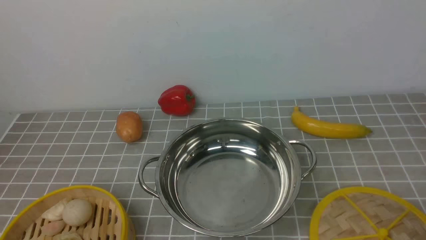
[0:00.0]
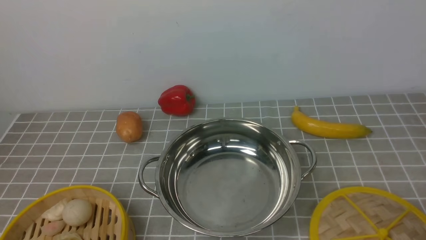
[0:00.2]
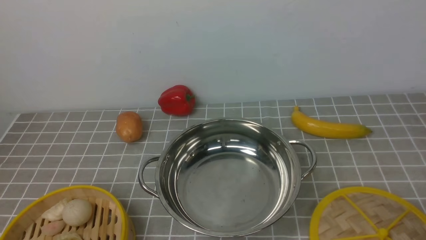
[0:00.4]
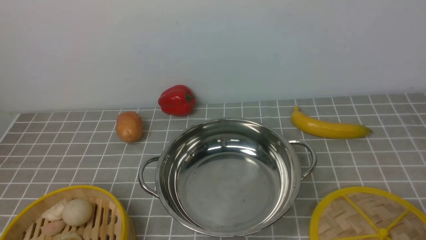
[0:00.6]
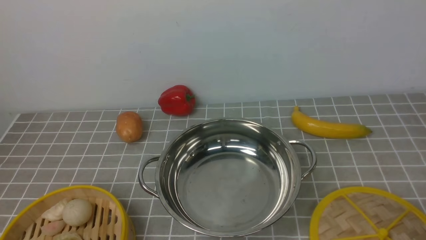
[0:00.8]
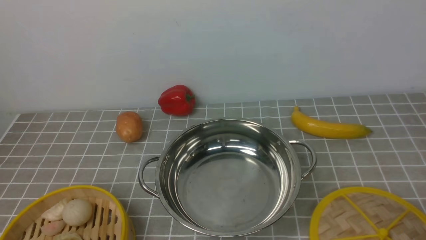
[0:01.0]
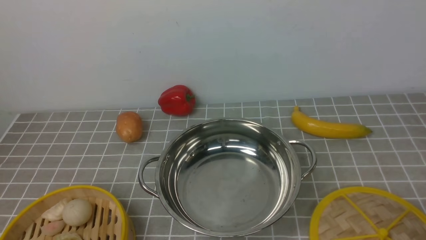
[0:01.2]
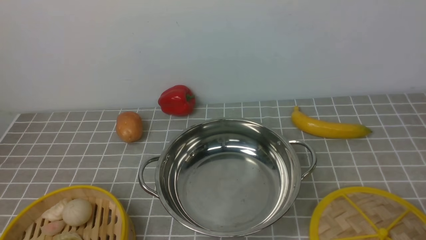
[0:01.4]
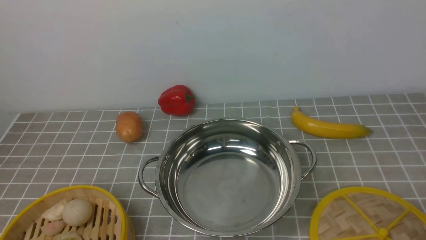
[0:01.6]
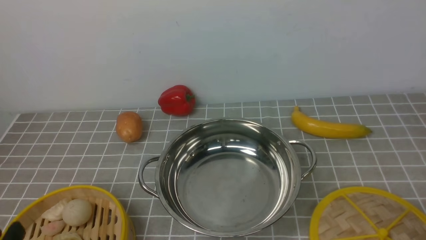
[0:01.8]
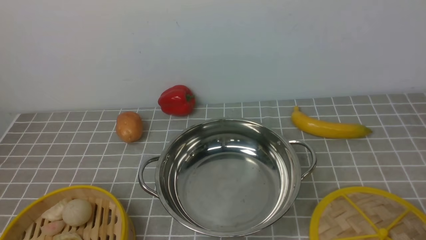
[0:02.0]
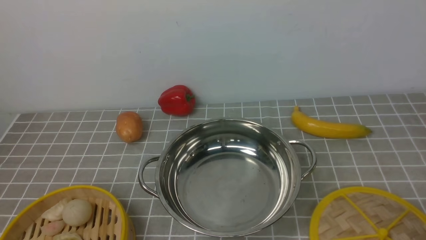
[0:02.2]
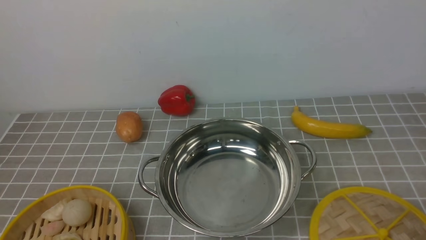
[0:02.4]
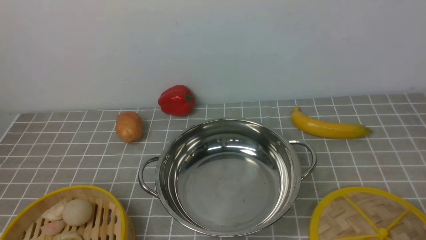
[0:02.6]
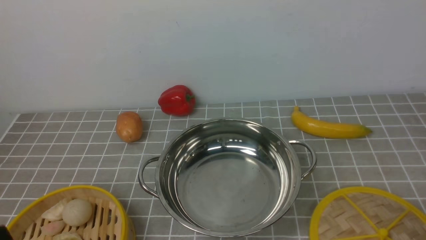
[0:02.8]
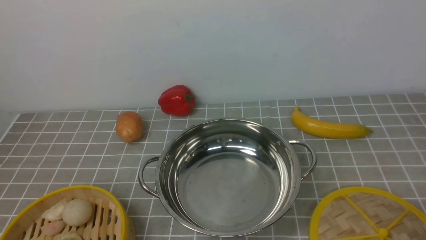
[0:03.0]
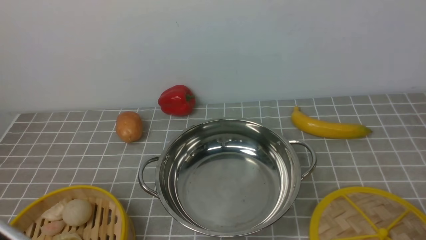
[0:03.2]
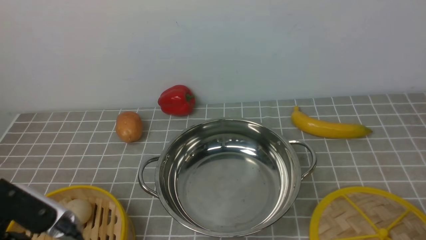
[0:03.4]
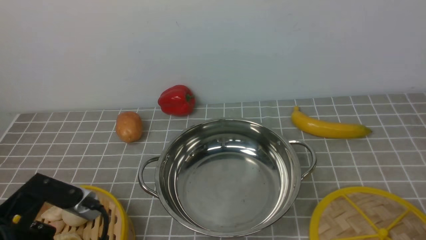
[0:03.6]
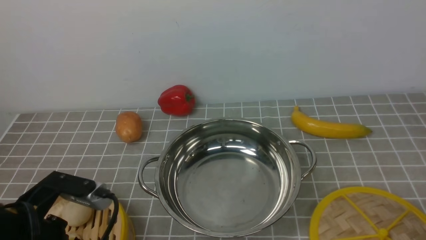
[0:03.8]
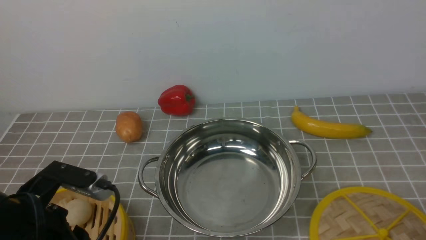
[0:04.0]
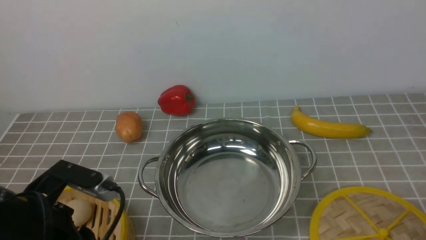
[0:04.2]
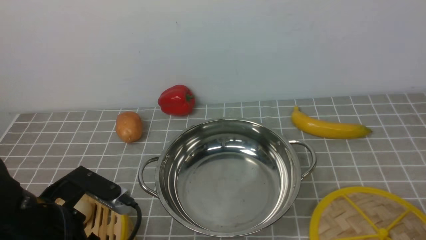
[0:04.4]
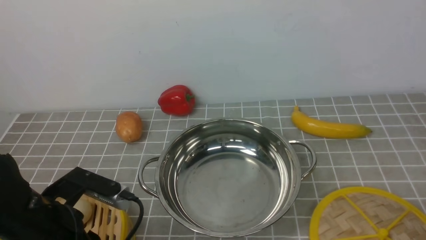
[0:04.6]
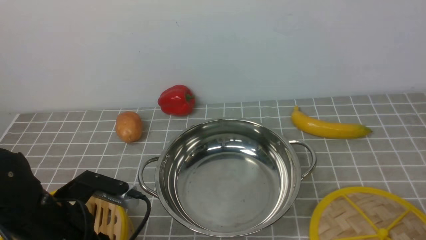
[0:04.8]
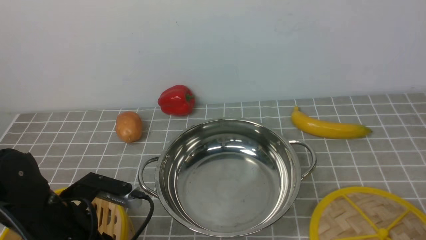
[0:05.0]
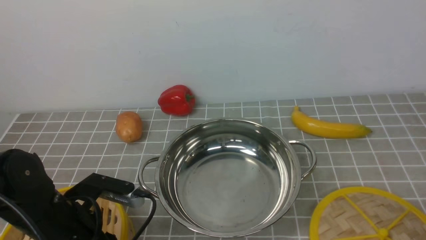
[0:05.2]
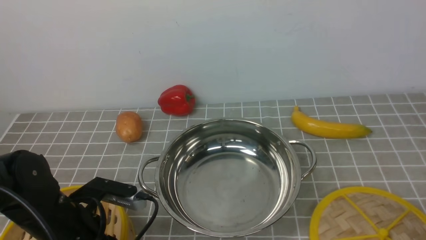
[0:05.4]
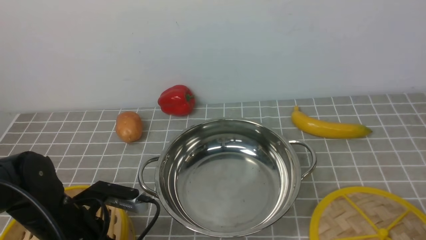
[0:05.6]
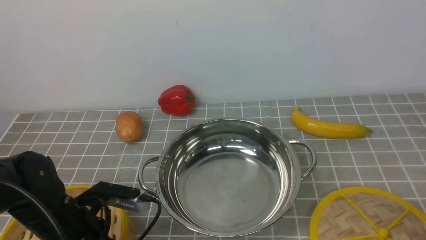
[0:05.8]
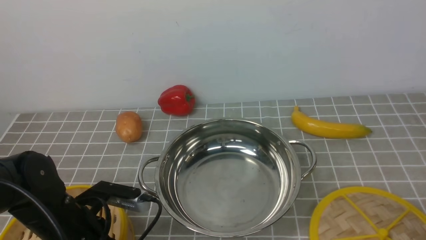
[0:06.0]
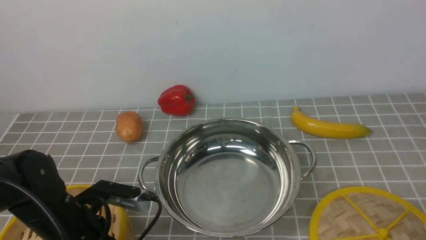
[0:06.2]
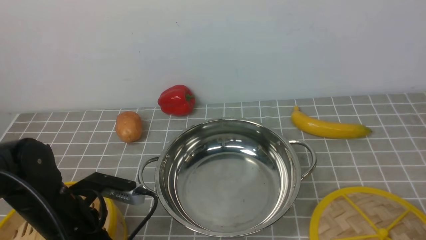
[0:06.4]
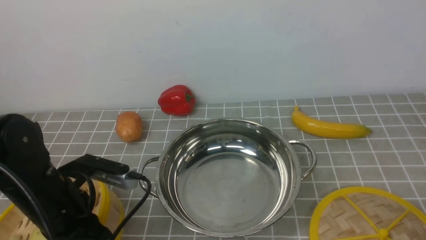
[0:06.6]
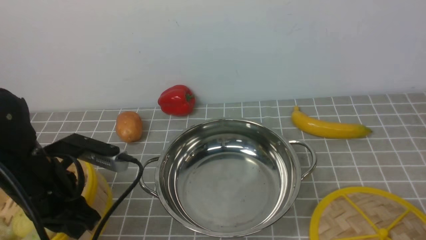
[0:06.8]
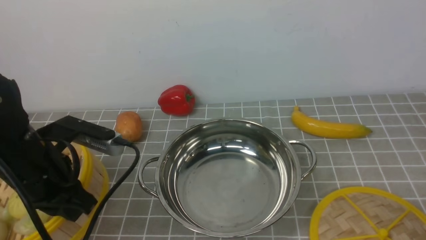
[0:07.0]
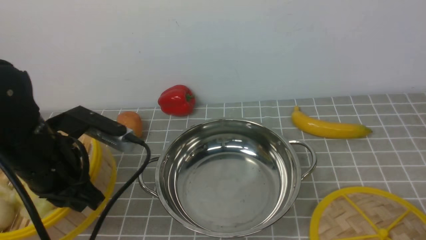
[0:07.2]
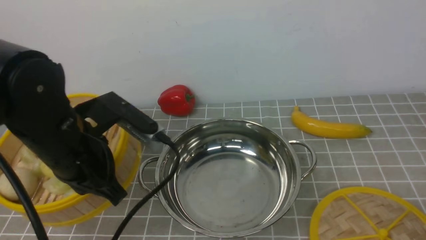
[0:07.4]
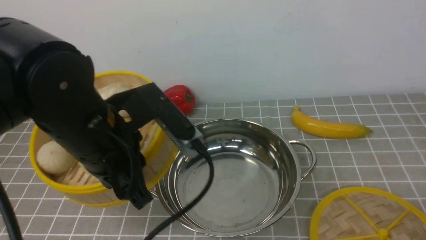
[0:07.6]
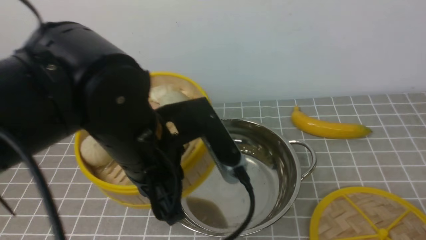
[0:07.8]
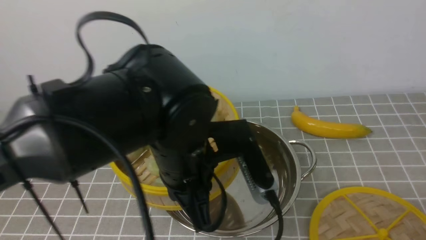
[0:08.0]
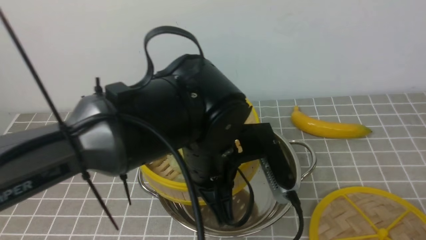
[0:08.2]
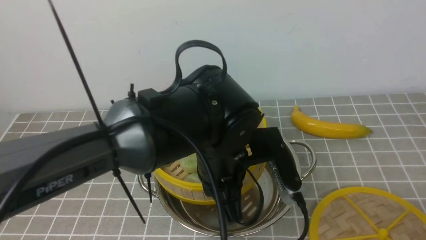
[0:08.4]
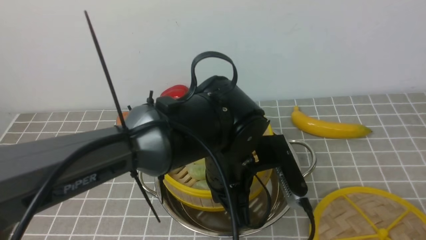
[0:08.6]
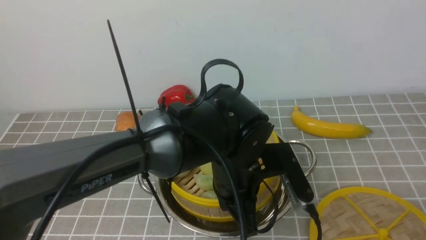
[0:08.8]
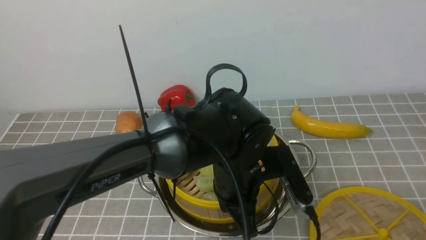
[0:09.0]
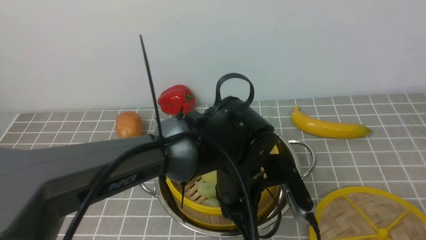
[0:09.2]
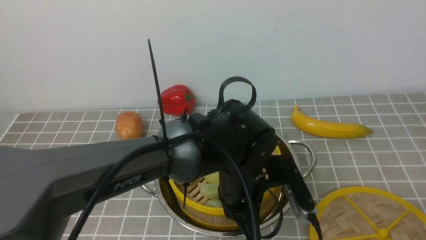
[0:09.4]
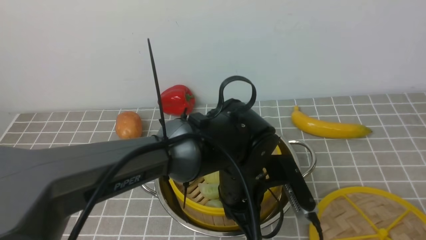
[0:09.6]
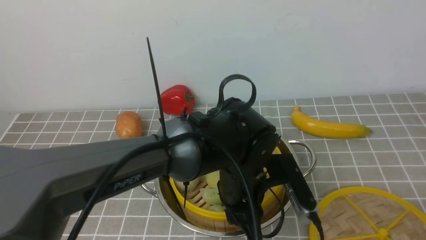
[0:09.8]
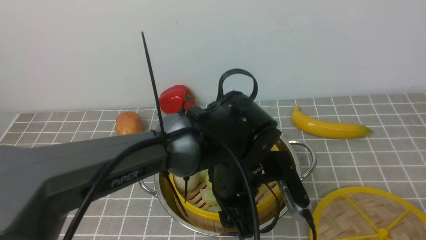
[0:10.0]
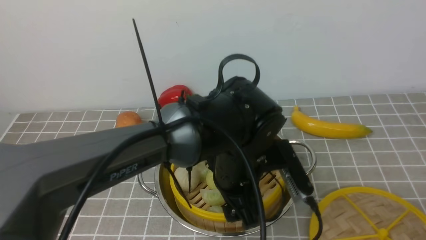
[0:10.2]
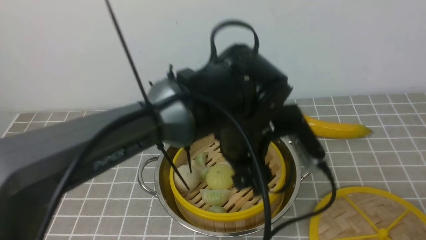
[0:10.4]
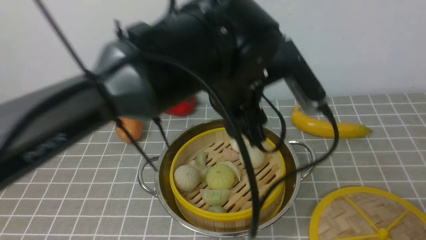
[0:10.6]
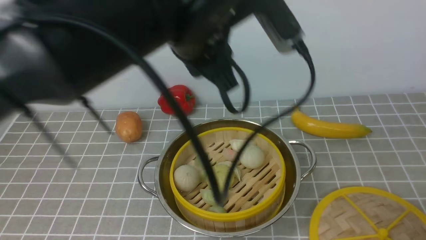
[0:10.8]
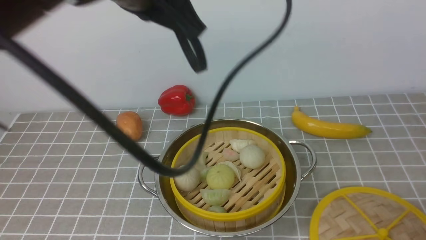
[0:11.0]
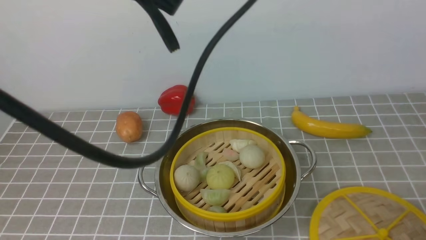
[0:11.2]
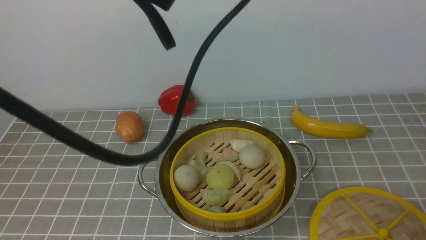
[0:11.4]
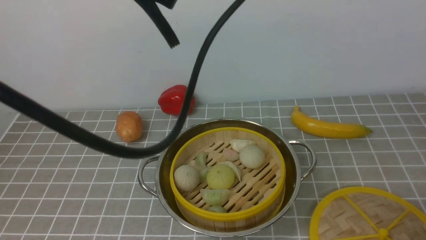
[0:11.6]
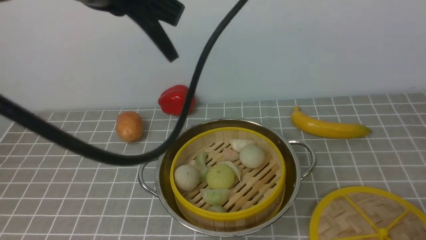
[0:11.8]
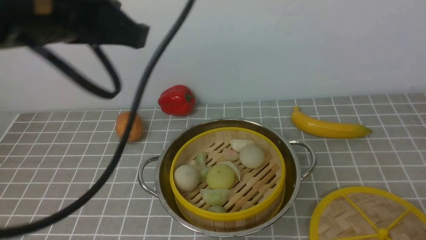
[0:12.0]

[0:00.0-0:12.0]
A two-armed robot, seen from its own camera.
Task of the whole recording: place the steamer in the pot on the grey tablecloth, and put the lid on the steamer.
Step, 0:00.0 to 0:06.4: use the left arm to lift the steamer closest to it.
Step, 0:06.6 to 0:10.2: use the left arm to put the steamer into the iron steamer pot in the middle.
0:03.0 to 0:04.4: The left gripper heads forward and downward, covering roughly 15 cm.
0:04.4 to 0:06.0: The left gripper moves downward, approximately 5 cm, and closes up.
0:06.0 to 0:07.6: The left gripper is displaced upward and to the right by roughly 15 cm.
0:07.6 to 0:09.0: The left gripper shifts some 15 cm to the right and downward.
0:09.0 to 0:10.4: The left gripper is displaced upward by approximately 5 cm, and opens up.
0:10.4 to 0:12.0: The left gripper goes about 25 cm to the left and upward, and closes its fingers.

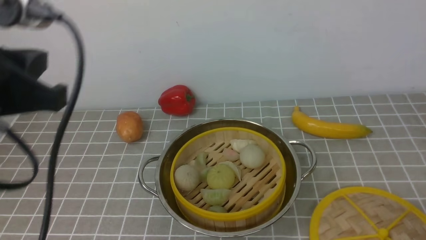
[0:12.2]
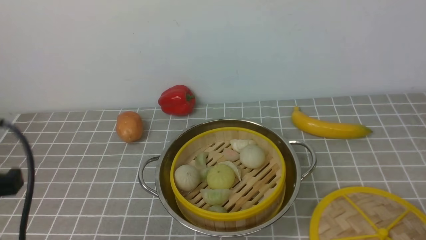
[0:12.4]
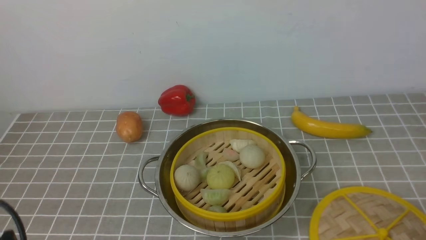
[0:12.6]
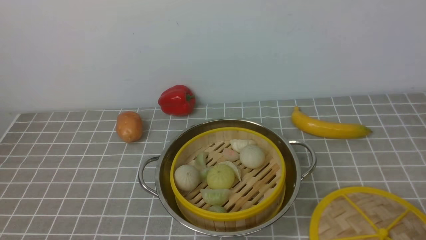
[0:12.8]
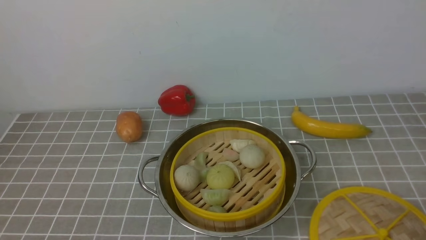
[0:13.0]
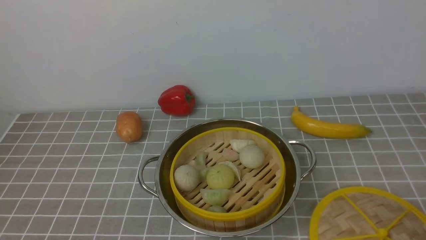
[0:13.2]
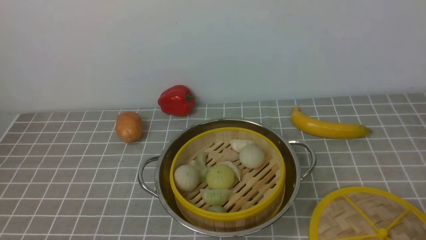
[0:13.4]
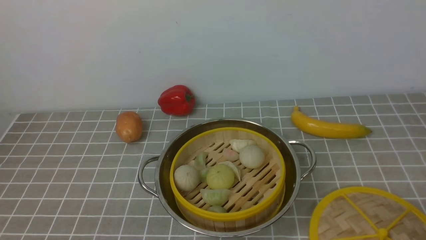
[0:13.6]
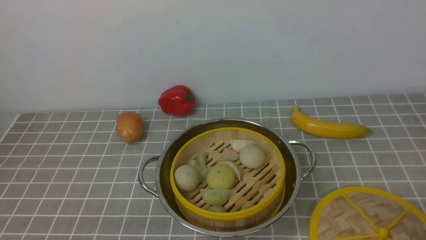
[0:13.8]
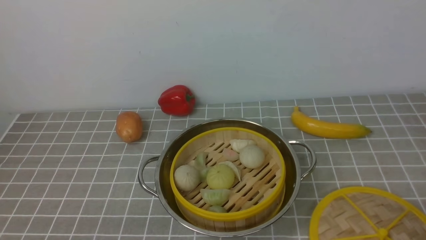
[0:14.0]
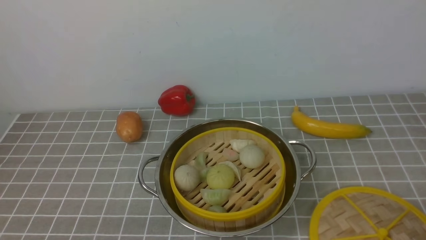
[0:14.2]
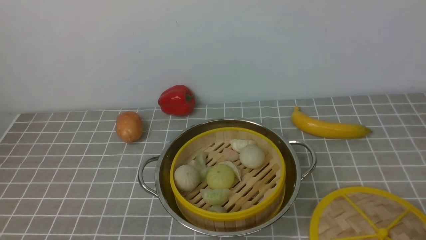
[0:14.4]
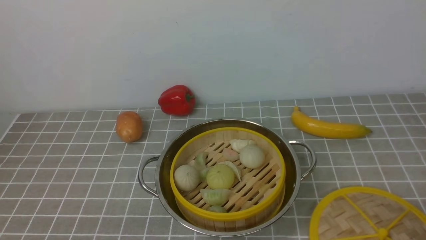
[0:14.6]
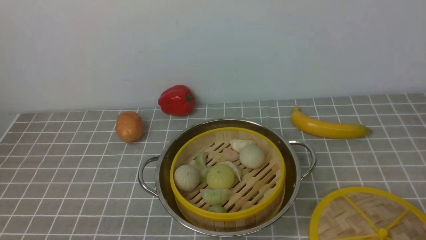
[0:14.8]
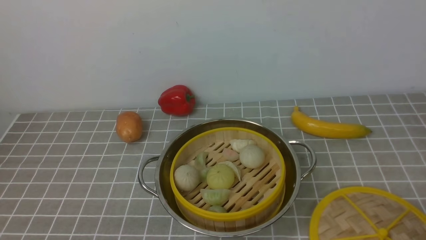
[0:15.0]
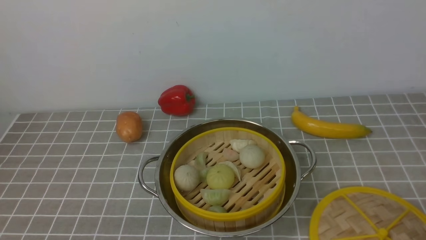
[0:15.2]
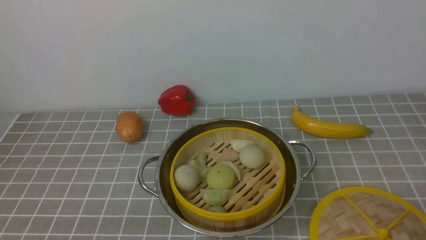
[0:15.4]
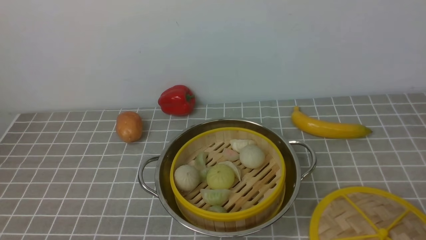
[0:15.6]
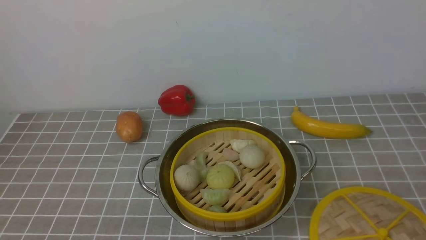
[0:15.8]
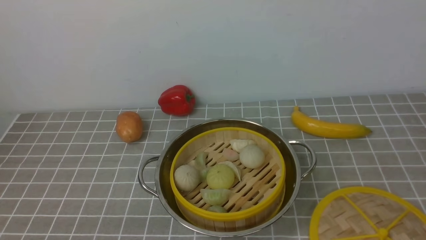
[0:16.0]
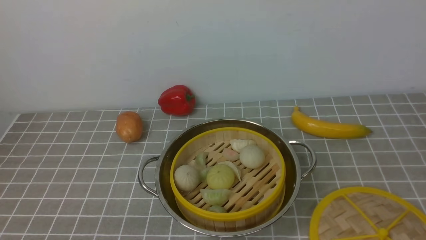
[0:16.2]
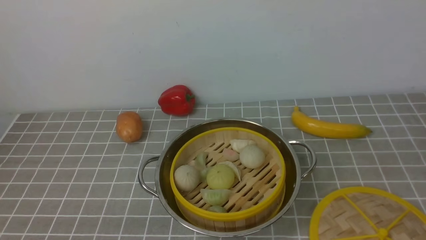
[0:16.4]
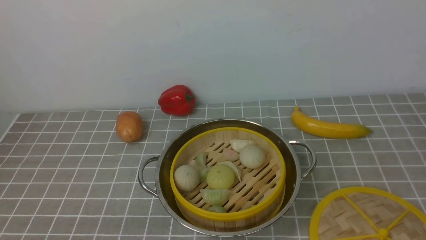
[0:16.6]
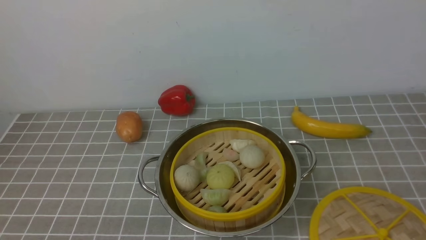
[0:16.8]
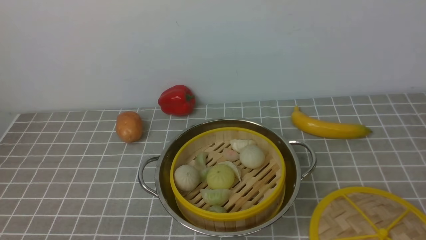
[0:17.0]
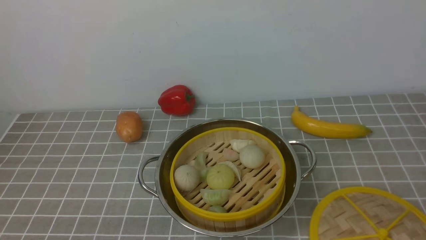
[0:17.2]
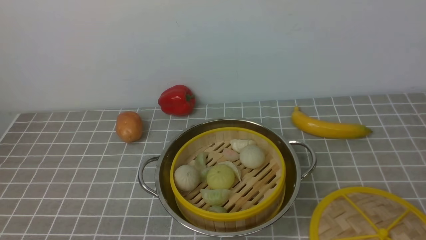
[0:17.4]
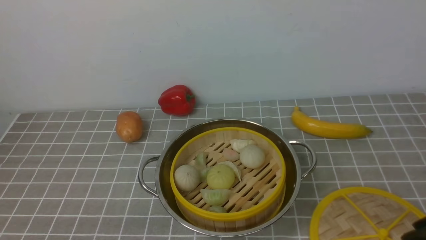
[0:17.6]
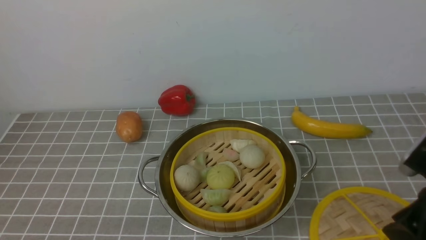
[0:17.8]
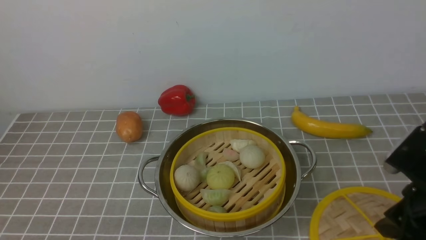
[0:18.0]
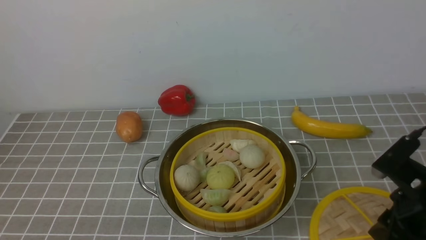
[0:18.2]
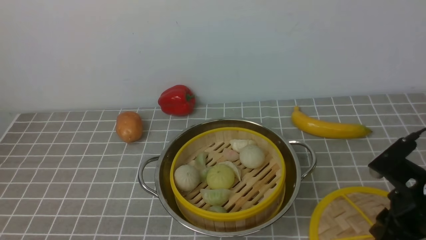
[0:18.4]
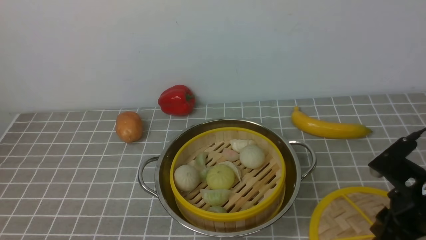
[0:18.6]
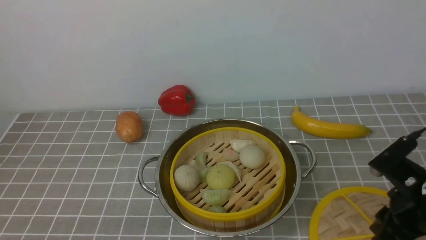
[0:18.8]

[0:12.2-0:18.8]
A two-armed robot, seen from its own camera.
Task of the whole recording: place the steamer in the pot on the grey tablecloth, and put the lid on the steamer.
0:12.2 to 0:13.8: The left gripper shifts approximately 25 cm downward and backward.
0:13.8 to 0:15.4: Both grippers stay put.
0:17.2 to 0:18.8: The right gripper is displaced forward and downward by some 15 cm.
